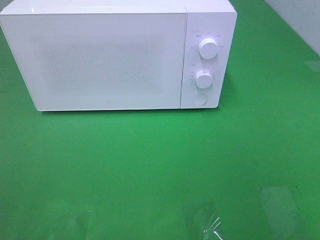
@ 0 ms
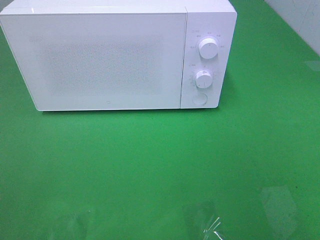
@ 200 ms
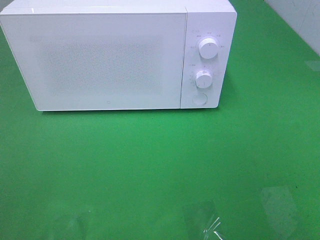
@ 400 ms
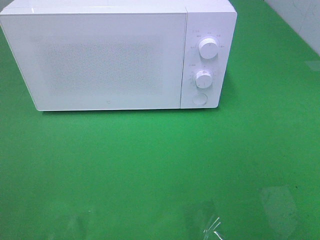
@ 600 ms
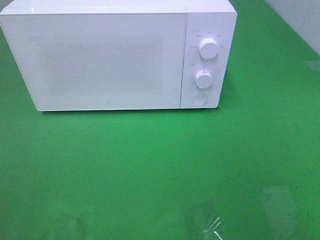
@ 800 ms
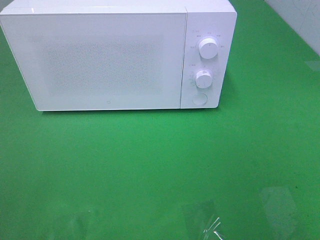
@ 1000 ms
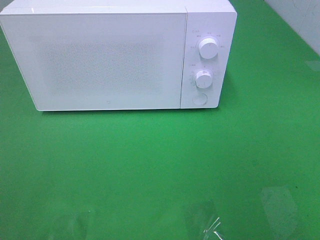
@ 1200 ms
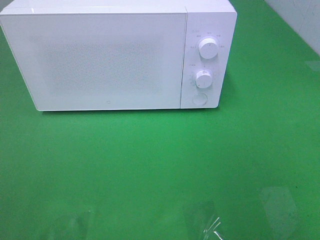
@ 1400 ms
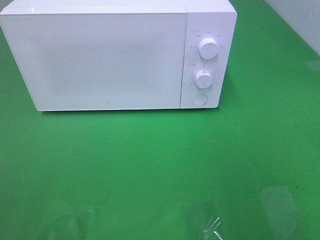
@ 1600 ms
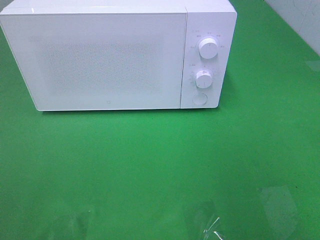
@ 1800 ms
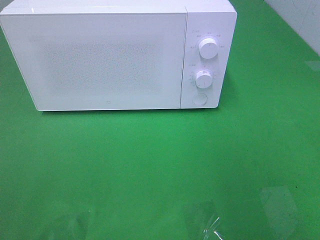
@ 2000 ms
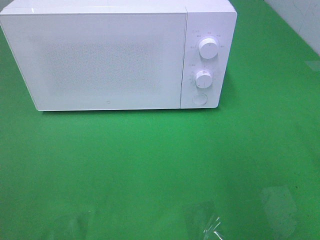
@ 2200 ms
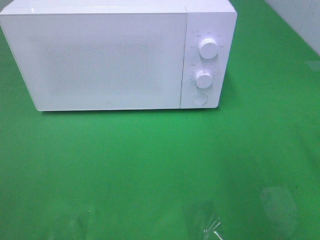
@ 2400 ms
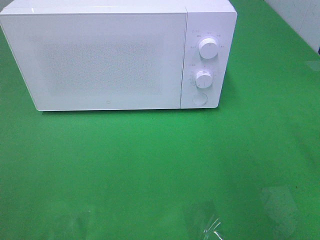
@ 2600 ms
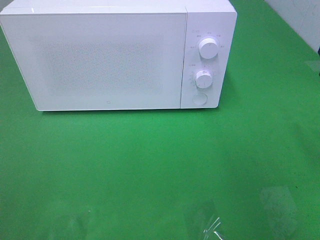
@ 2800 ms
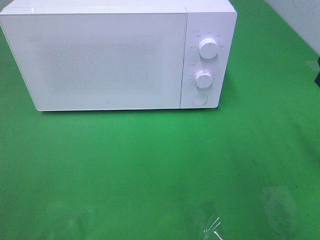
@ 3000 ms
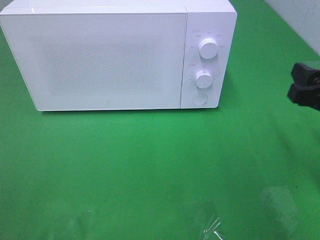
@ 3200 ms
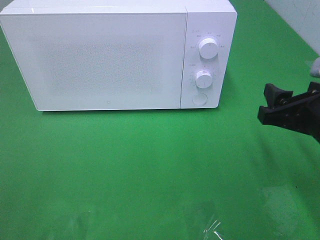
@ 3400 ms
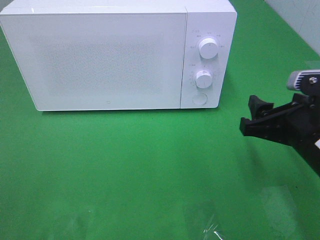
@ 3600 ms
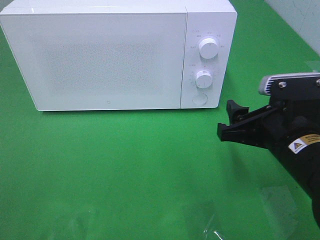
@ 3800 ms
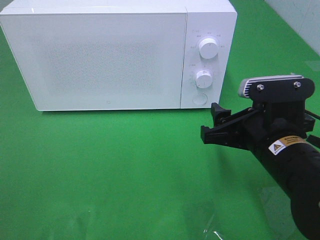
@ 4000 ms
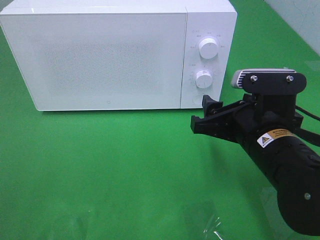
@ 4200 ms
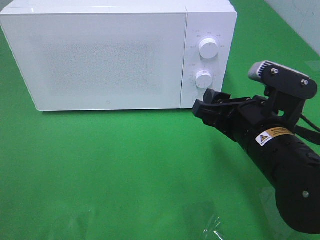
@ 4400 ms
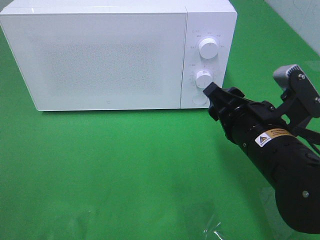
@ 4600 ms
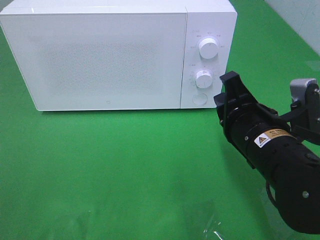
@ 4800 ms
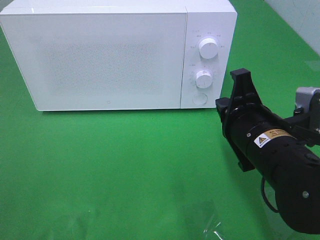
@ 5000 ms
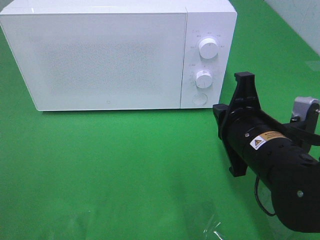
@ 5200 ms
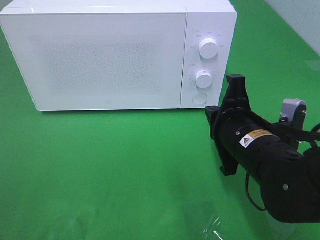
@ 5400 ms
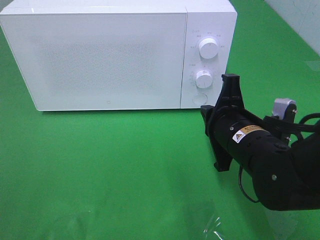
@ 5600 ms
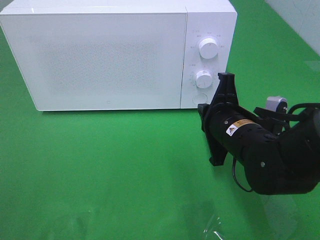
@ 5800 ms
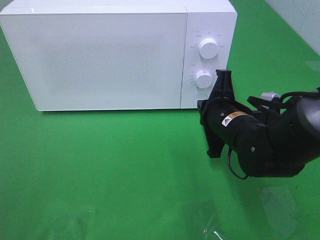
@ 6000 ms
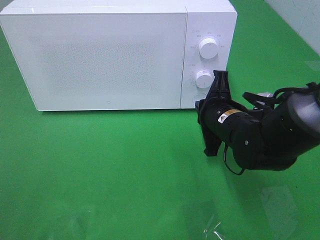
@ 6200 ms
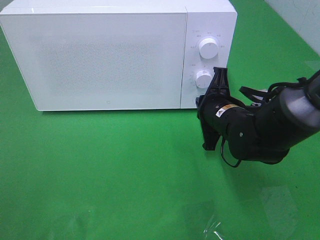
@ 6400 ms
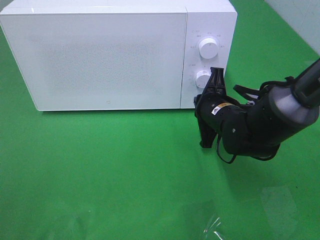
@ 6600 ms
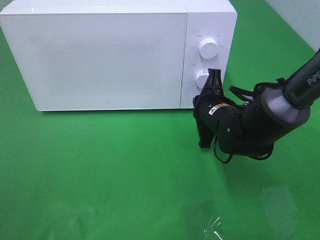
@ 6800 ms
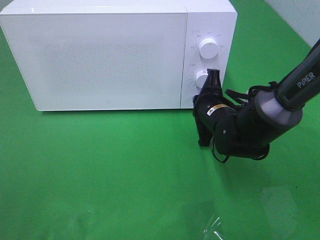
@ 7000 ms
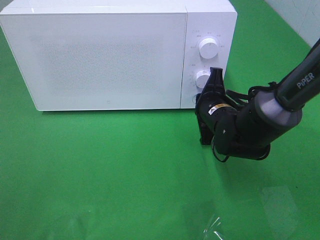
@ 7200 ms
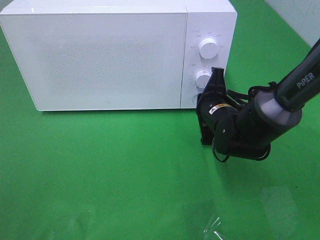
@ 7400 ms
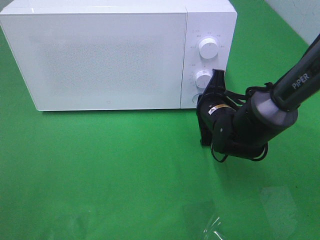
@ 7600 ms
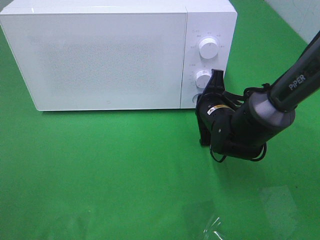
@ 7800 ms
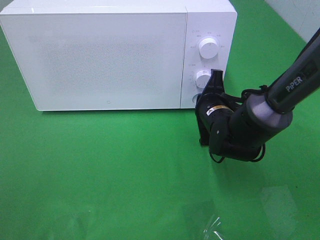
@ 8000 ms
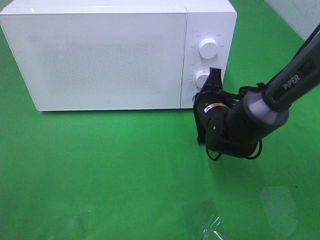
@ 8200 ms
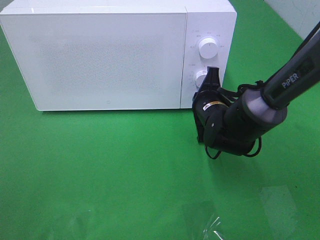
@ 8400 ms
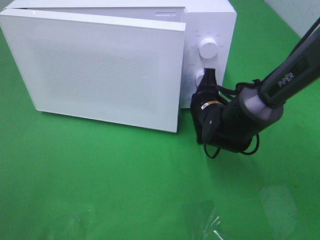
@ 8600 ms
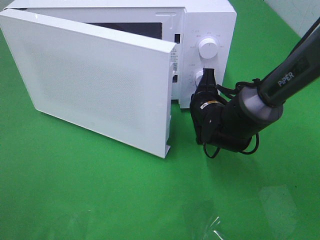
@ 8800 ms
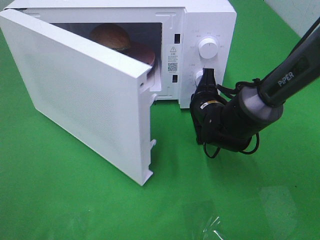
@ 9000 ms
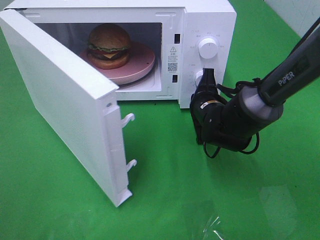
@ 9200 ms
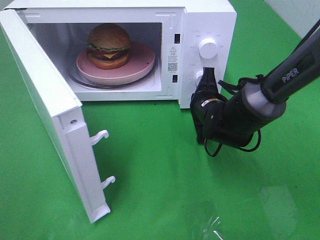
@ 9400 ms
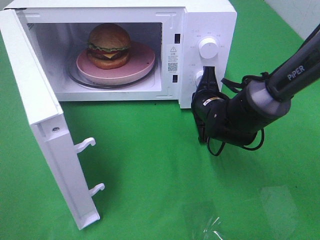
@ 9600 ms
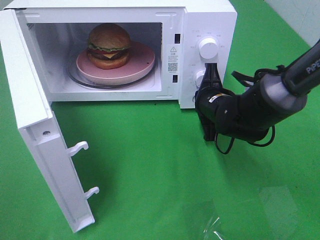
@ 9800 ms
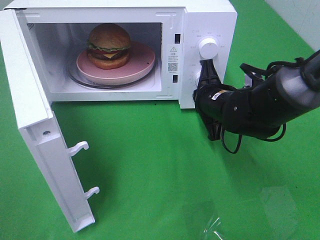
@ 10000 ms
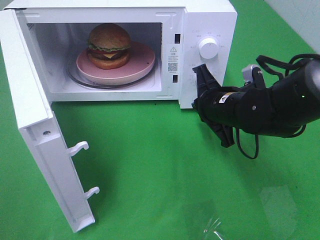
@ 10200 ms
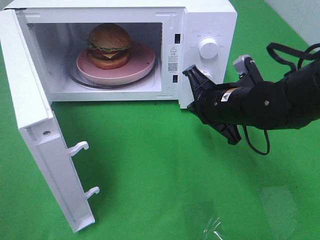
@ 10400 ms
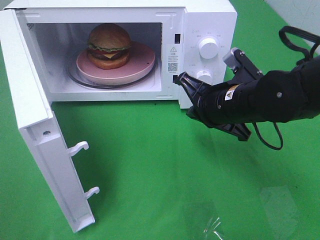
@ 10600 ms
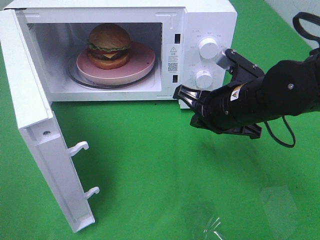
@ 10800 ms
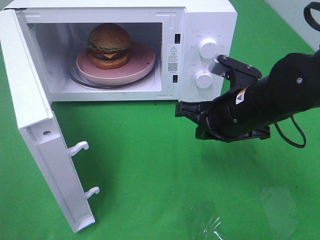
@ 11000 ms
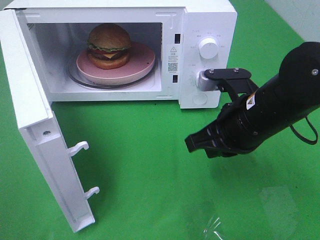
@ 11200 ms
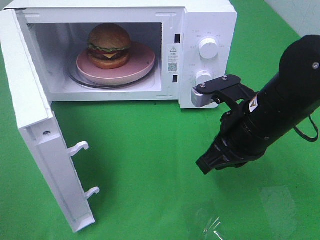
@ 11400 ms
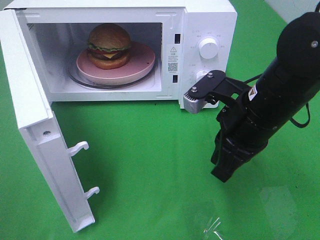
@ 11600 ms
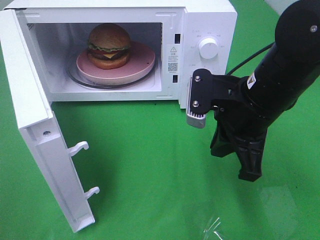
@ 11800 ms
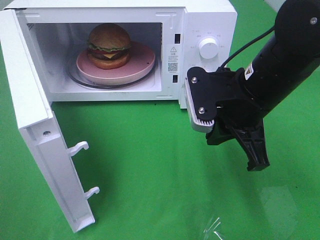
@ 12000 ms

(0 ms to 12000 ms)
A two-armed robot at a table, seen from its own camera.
Task of the whole recording: Heat the burger.
Step, 0 ms - 10200 ms: Right hand: press the switch.
3000 ms - 4400 ms: The right gripper travels to the left by approximately 15 cm.
4400 ms - 6000 ms: The right gripper heads forward, covering about 10 cm, and closes.
6000 ms - 7600 ms: The right gripper travels forward by approximately 5 cm.
9000 ms - 10400 ms: The right gripper moves upward and backward, some 10 cm.
10400 ms - 12000 ms: The right gripper travels upward by approximately 5 cm.

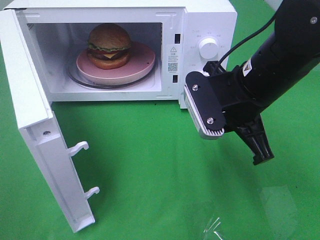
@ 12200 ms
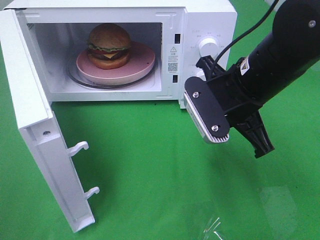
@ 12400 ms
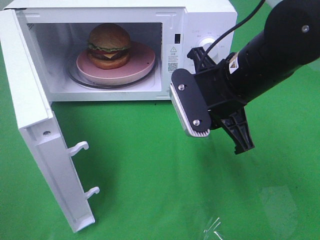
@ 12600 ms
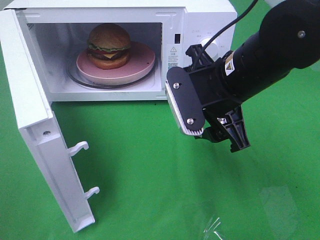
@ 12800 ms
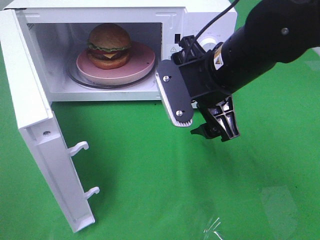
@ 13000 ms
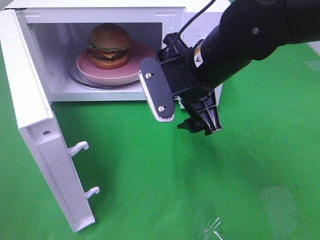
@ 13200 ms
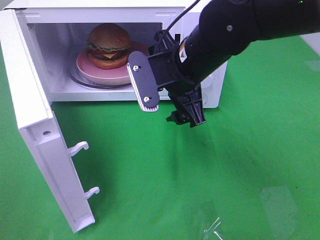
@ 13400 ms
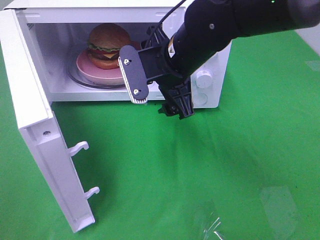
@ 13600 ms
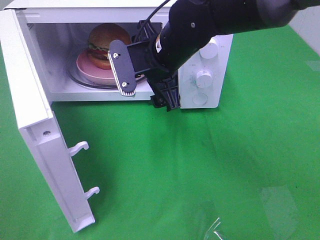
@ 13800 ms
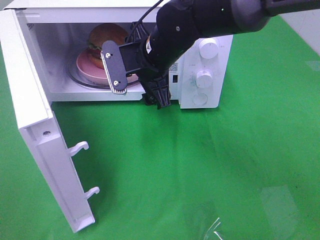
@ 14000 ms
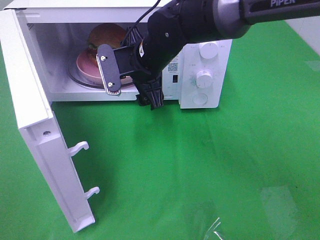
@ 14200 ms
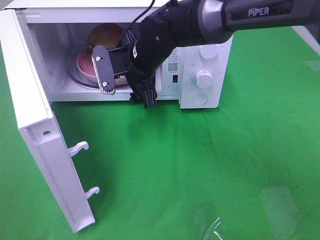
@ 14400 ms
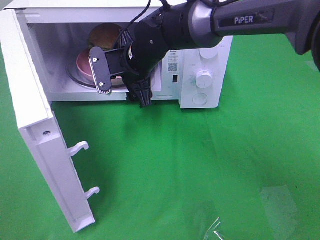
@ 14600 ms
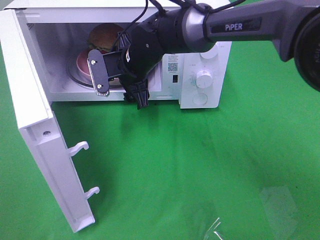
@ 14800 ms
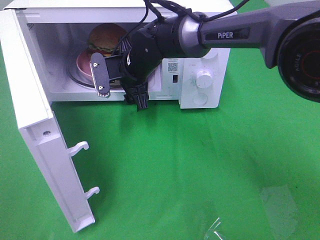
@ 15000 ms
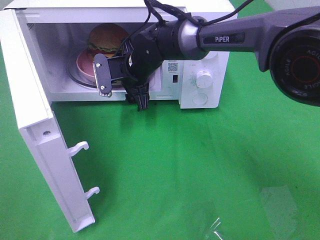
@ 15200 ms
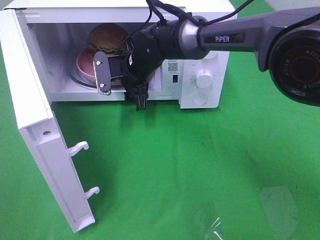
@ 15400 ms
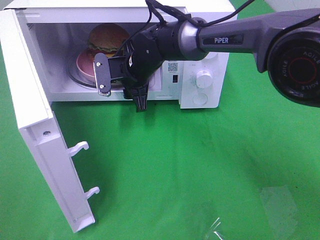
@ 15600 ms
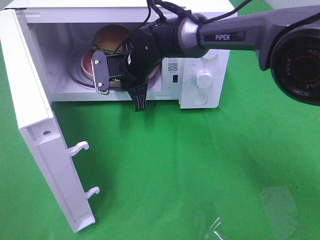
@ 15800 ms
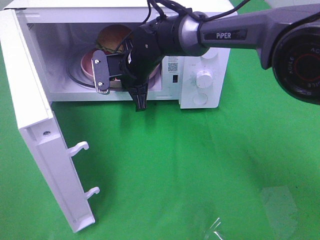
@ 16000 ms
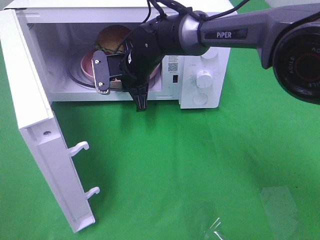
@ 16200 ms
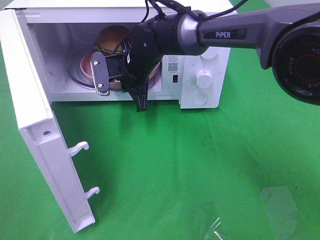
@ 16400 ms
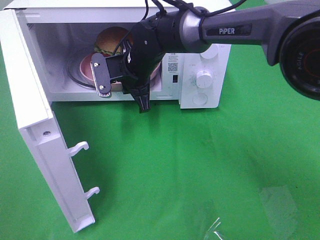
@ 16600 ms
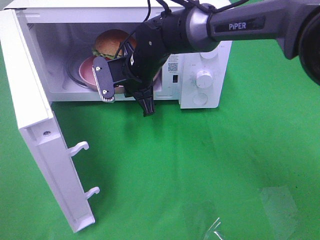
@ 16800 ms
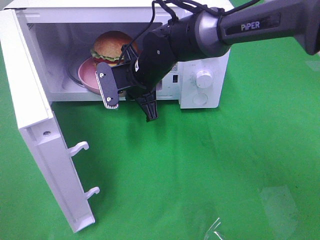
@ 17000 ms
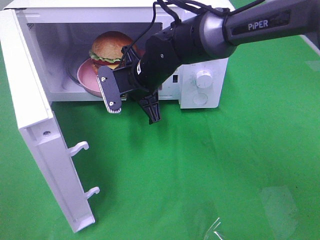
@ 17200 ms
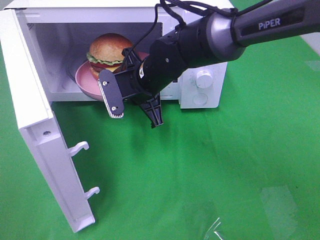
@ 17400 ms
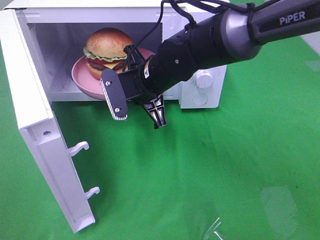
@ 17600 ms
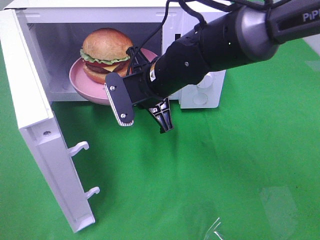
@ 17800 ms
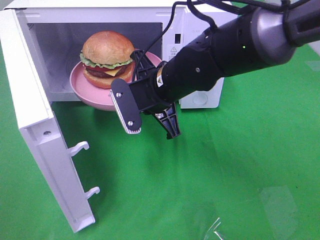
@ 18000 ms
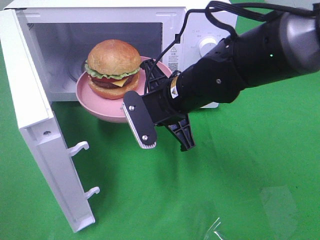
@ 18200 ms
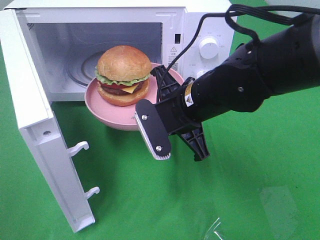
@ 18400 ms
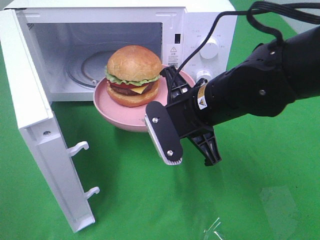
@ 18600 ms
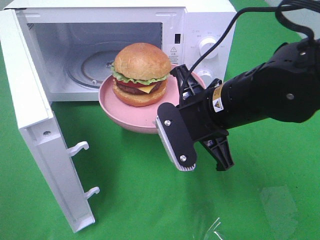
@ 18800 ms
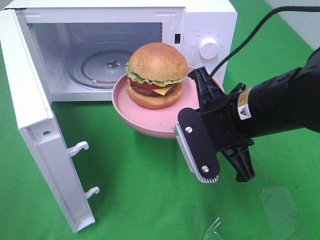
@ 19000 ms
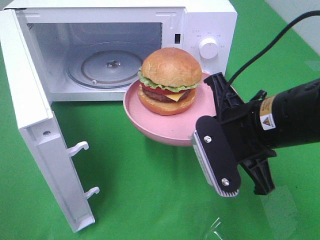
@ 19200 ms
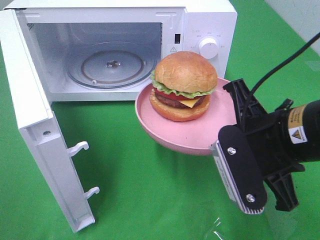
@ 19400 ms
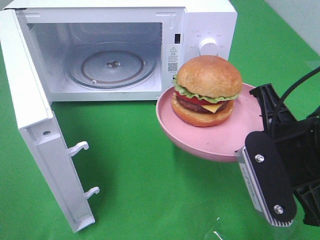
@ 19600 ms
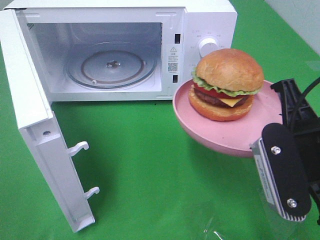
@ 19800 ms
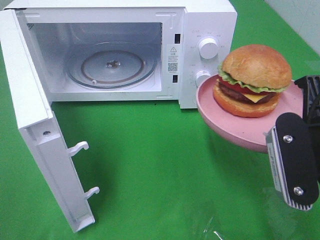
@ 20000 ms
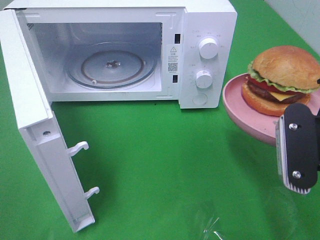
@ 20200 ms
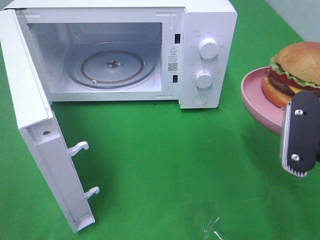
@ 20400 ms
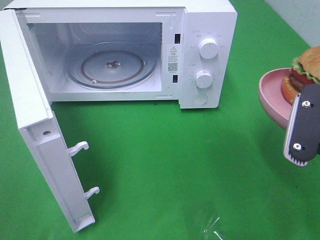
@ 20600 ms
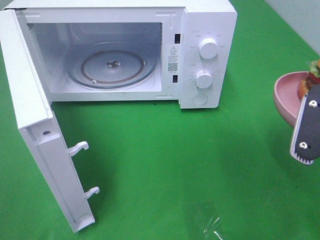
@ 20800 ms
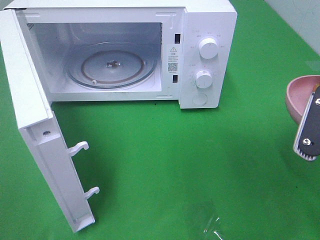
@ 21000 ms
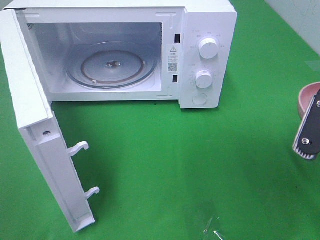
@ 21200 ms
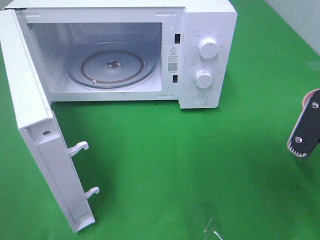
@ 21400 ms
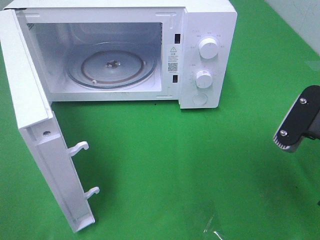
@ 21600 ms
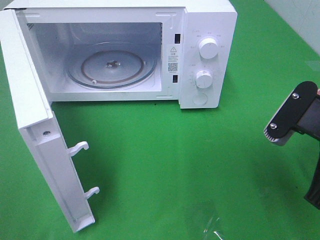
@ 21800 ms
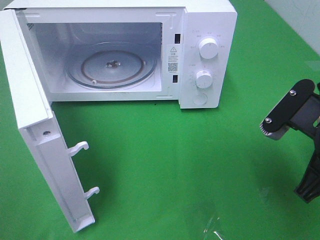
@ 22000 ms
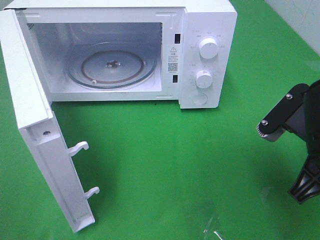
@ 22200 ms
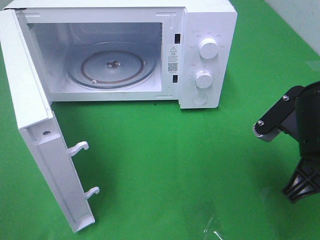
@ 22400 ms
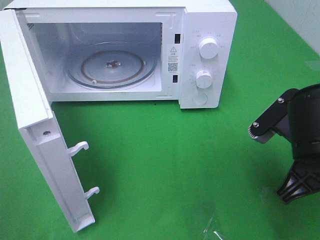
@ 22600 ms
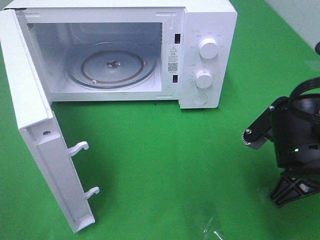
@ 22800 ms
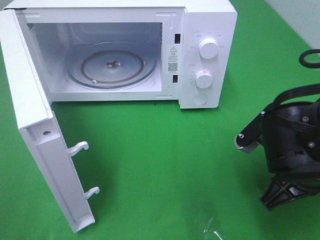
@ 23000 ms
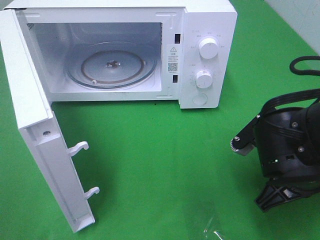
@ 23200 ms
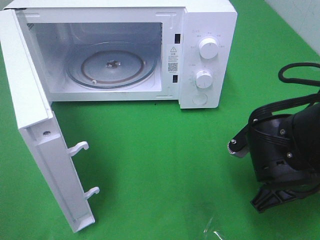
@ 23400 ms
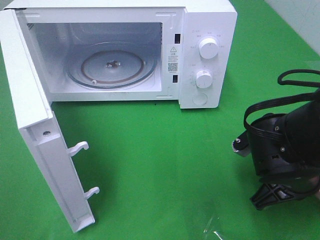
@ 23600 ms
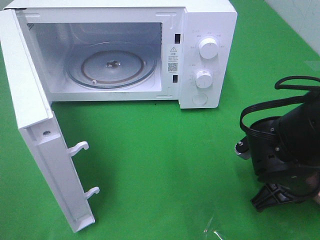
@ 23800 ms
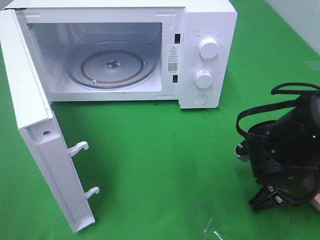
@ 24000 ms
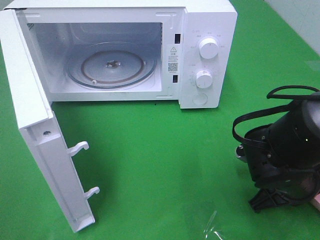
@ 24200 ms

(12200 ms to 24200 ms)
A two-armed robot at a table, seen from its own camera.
Task of the whole recording: Heat the burger.
Step, 12200 ms - 16200 ms: Right hand: grab the plate with the hamburger.
12200 ms - 13800 ms: The right gripper travels to the left and forward by some 15 cm, and opens.
13800 ms - 15200 ms: The right gripper goes roughly 10 cm forward and downward.
15200 ms - 16600 ms: The right gripper closes.
16600 ms - 18200 ms: The right gripper travels backward and to the right by approximately 15 cm.
18200 ms - 19800 ms: The right gripper shifts some 20 cm backward, to the right and upward.
21200 ms - 22600 ms: The right gripper ends up roughly 5 cm from where it was.
22600 ms - 24200 ms: The right gripper heads downward, covering roughly 10 cm.
